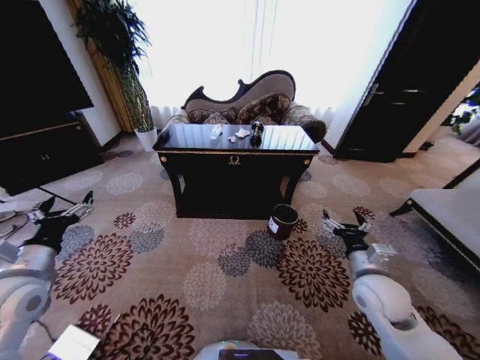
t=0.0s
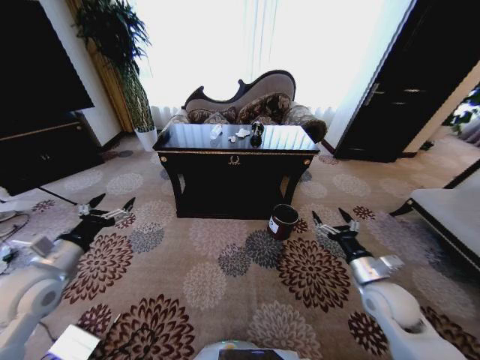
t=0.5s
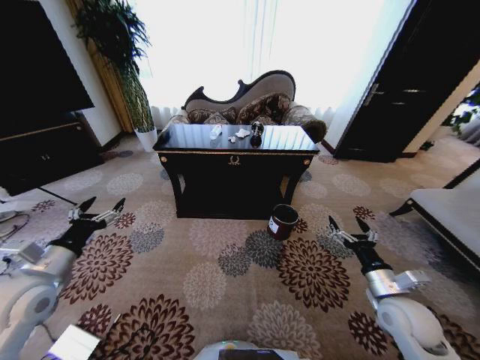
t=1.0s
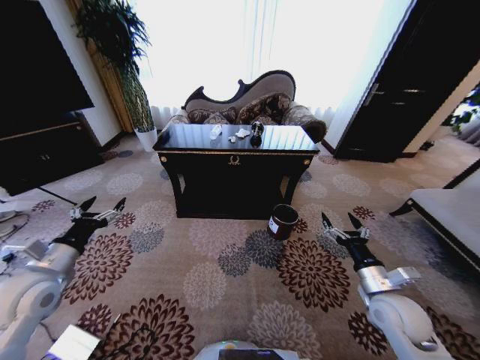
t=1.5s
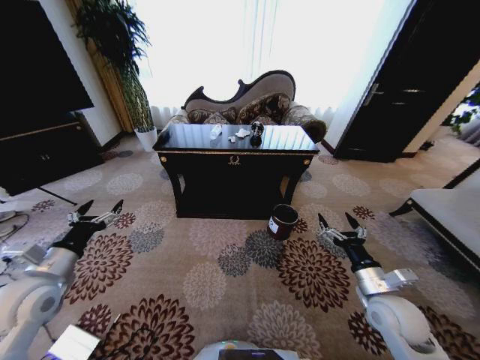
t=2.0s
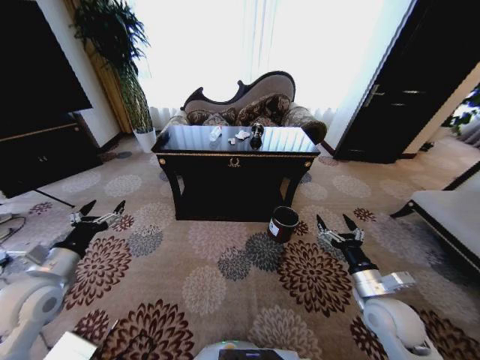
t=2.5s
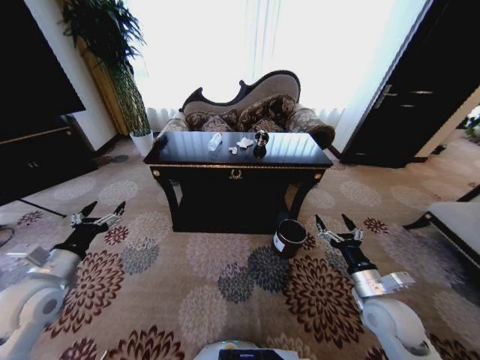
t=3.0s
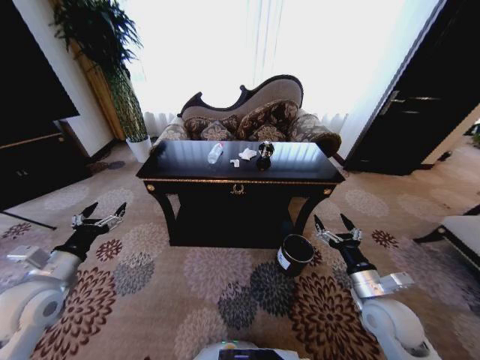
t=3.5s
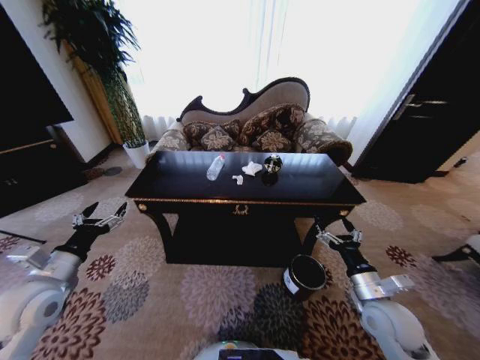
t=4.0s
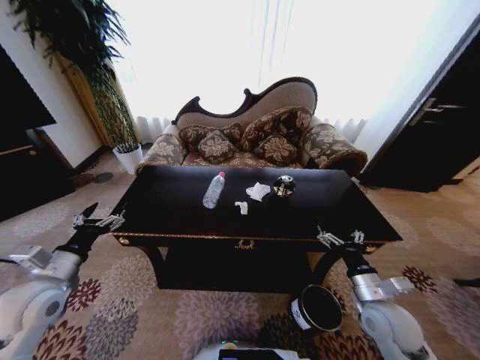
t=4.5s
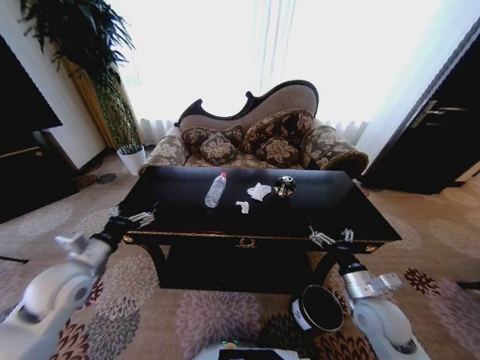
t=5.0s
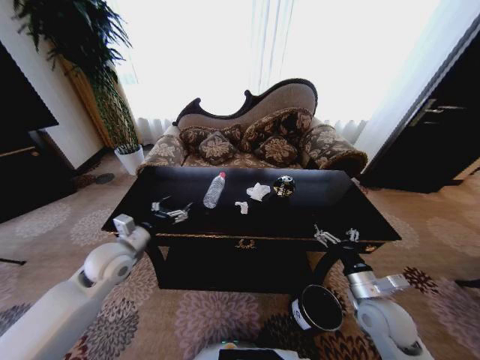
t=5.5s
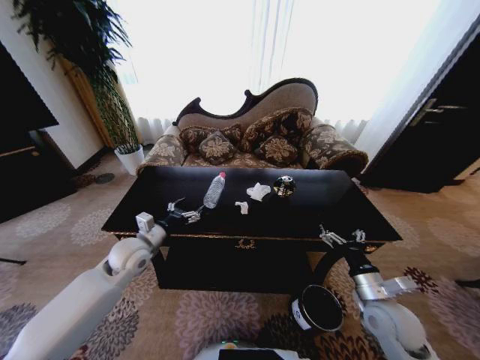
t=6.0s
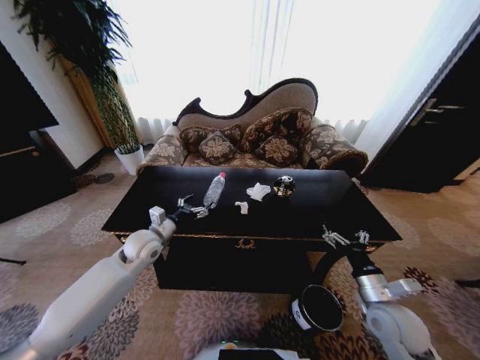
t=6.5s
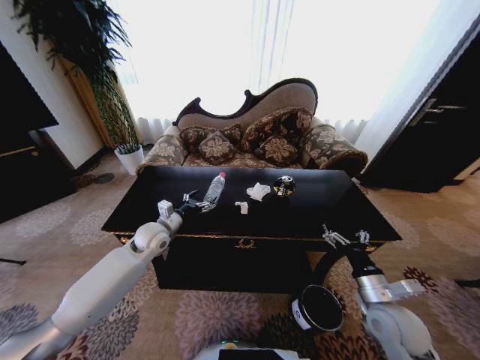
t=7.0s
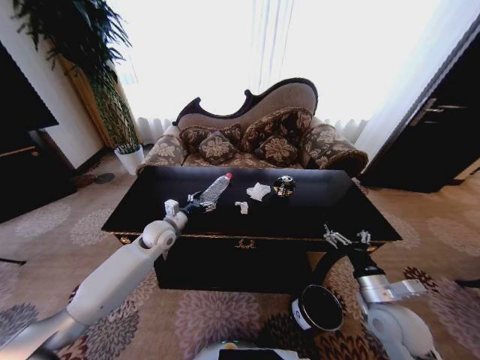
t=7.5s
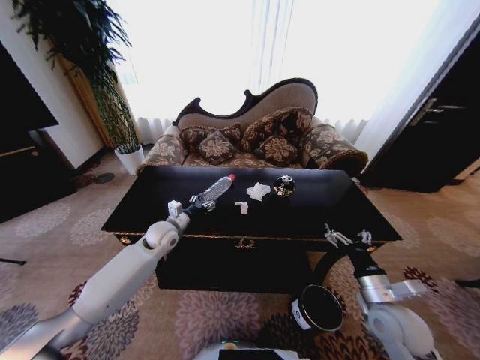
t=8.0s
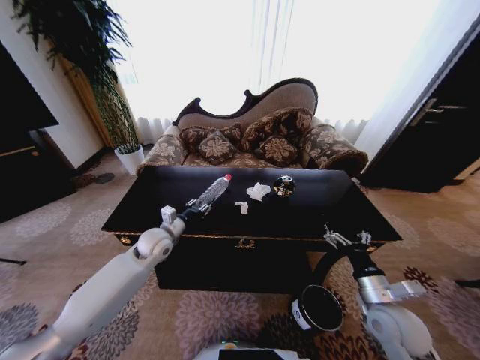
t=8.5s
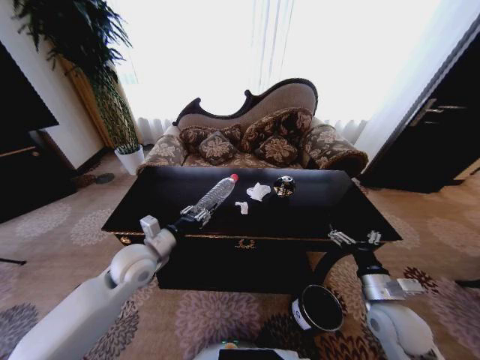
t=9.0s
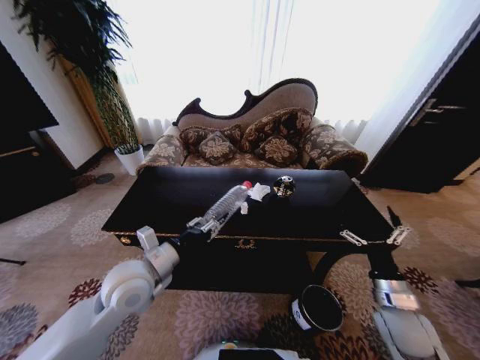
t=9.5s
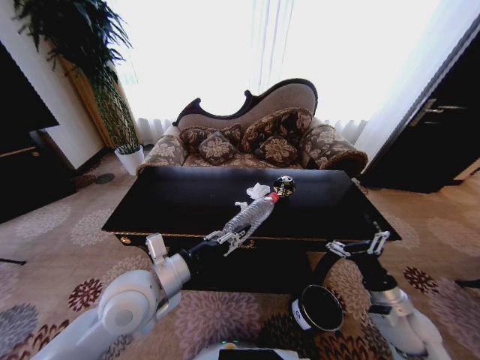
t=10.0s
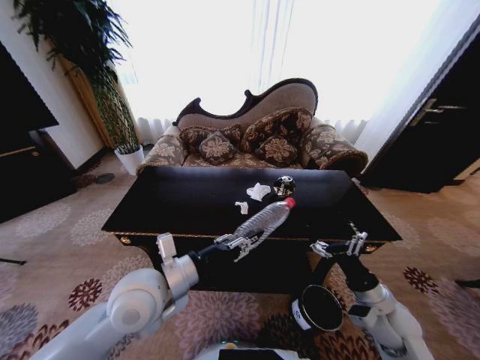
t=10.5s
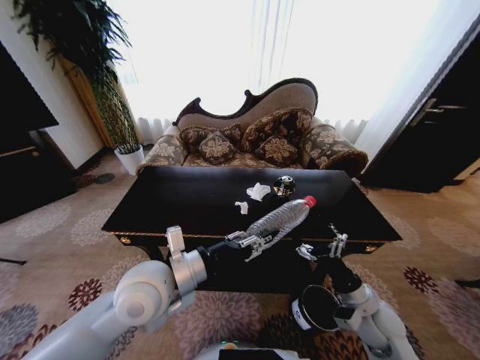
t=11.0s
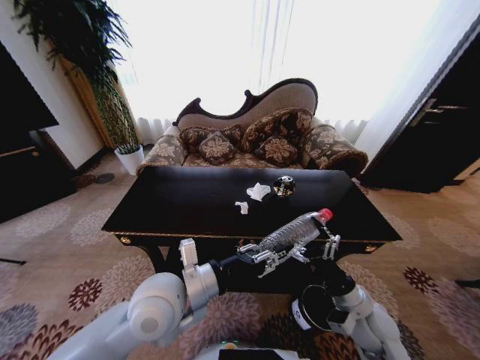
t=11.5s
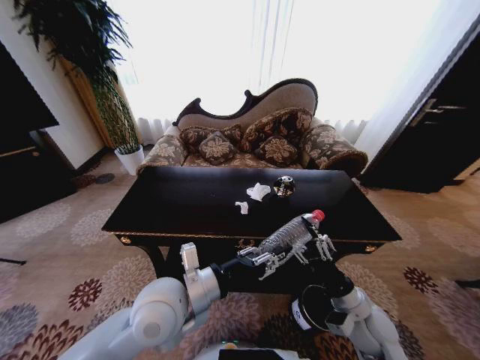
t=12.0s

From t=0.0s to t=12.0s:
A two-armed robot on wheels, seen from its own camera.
Task of the whole recording: Move to the front of the table and place the trash on the table into the trash bin.
From t=4.0s to t=6.0s: The left gripper heads forward and to the right, covering about 20 cm.
From t=6.0s to t=8.0s: The left gripper shifts approximately 10 cm forward and to the right, and closes its fingers.
From t=8.0s to t=10.0s: The right gripper ends up some 5 cm from where it was. The left gripper shifts roughly 25 cm backward and upward, and closes up.
From t=10.0s to t=12.0s: The left gripper heads to the right, covering some 5 cm. Meanwhile the right gripper is displaced to the left by approximately 10 cm.

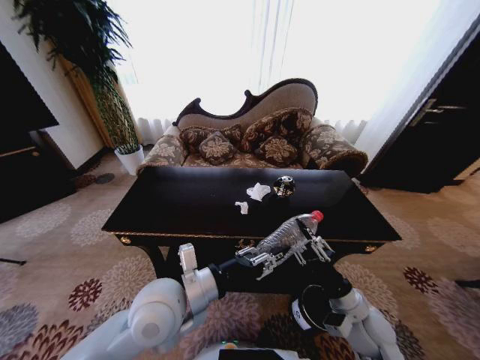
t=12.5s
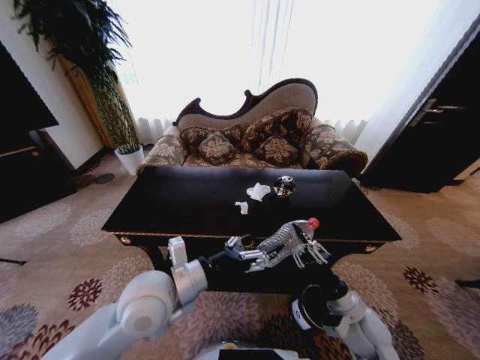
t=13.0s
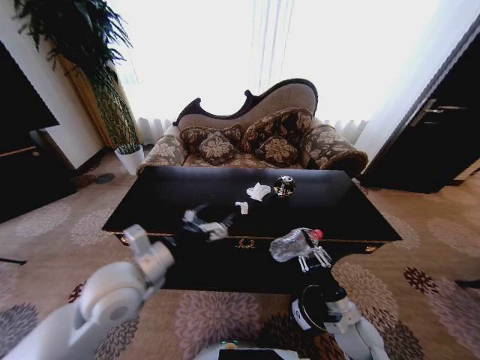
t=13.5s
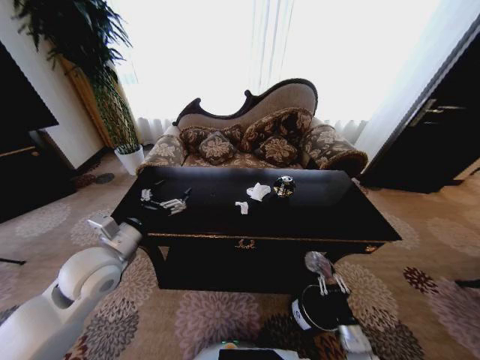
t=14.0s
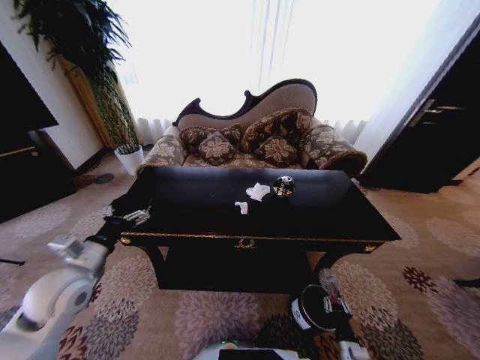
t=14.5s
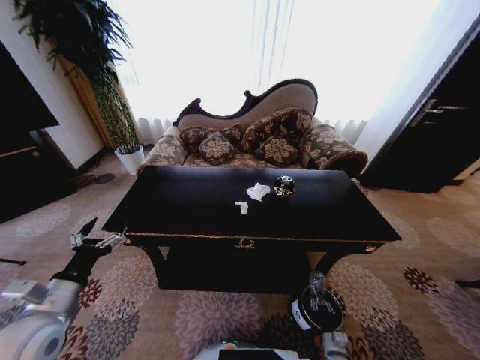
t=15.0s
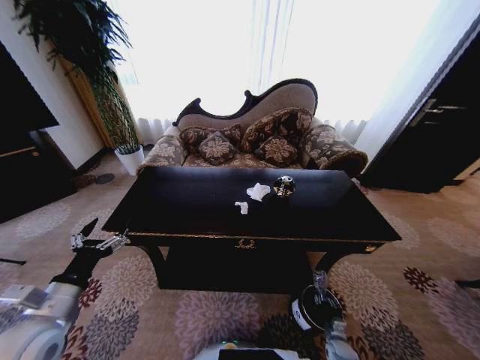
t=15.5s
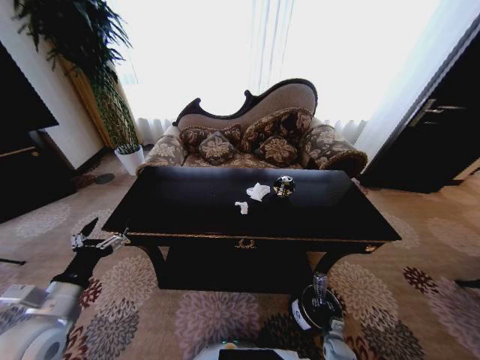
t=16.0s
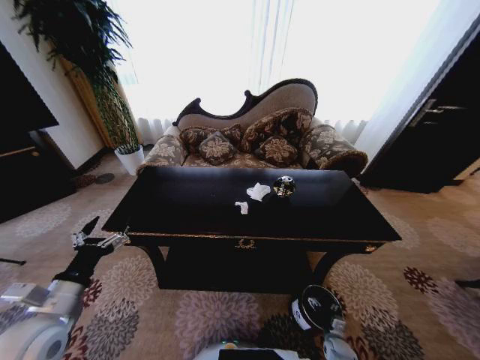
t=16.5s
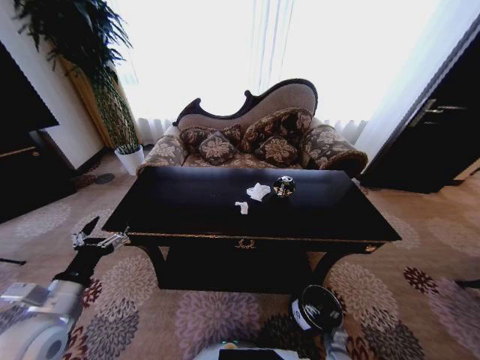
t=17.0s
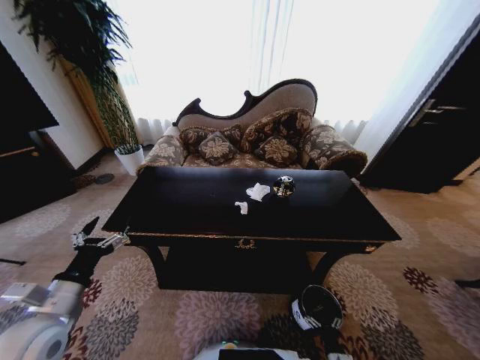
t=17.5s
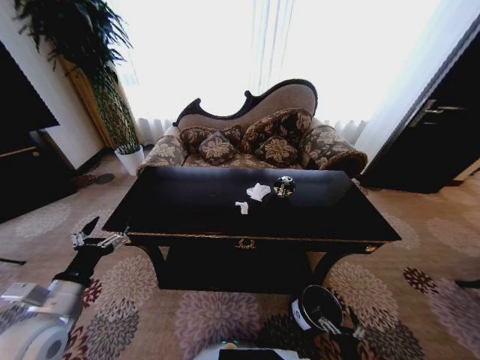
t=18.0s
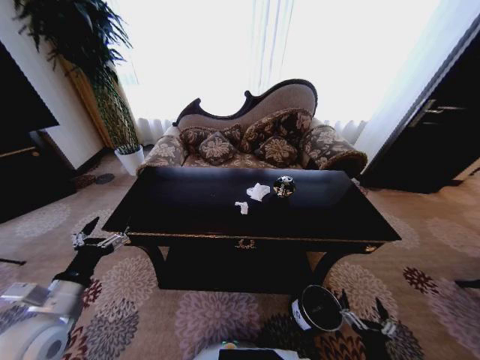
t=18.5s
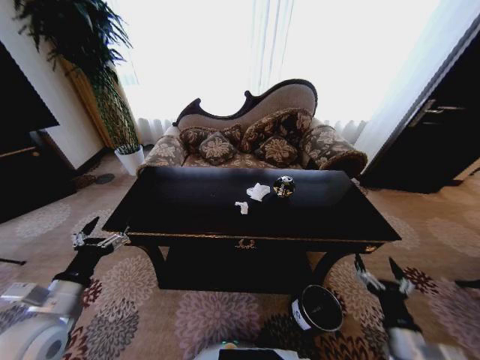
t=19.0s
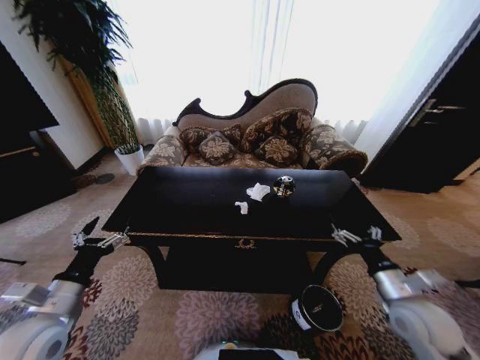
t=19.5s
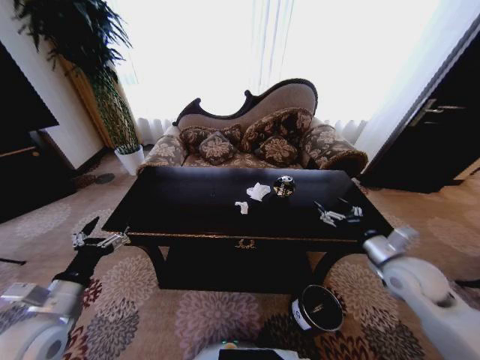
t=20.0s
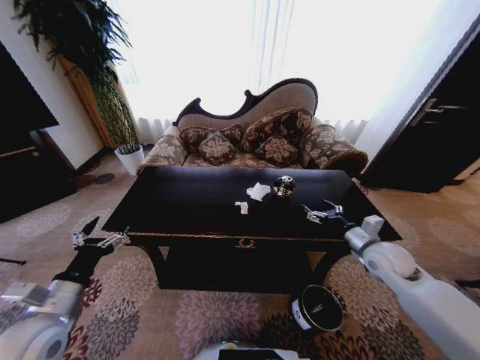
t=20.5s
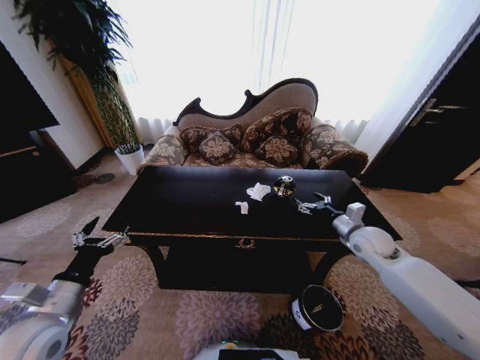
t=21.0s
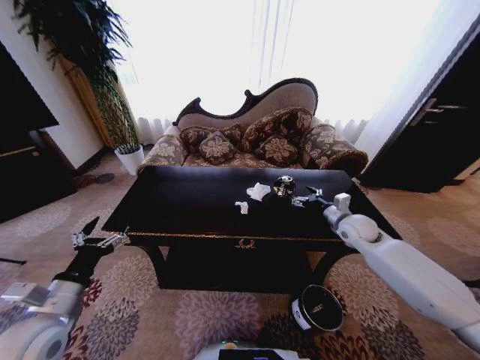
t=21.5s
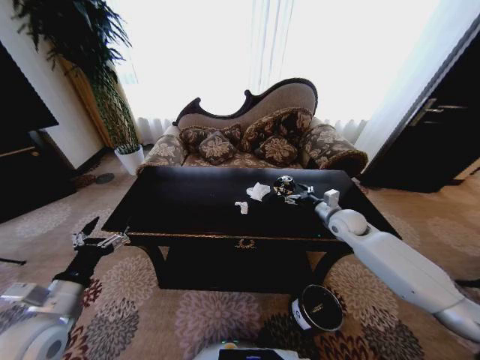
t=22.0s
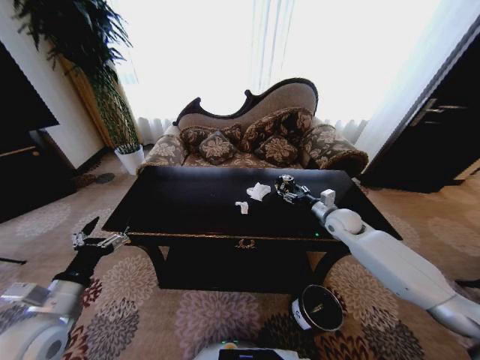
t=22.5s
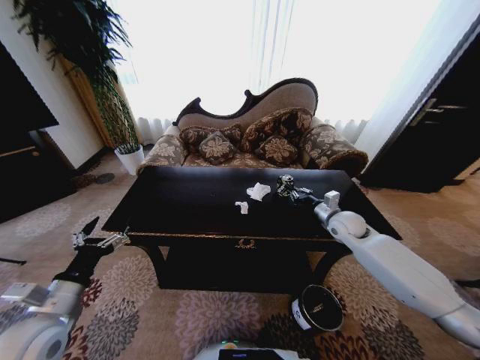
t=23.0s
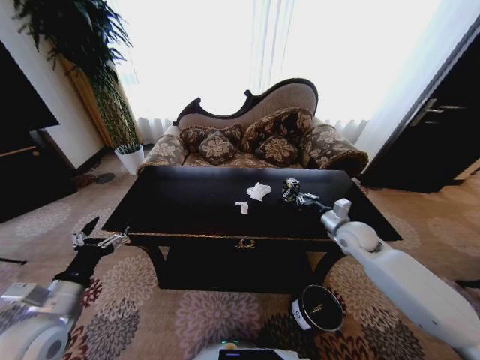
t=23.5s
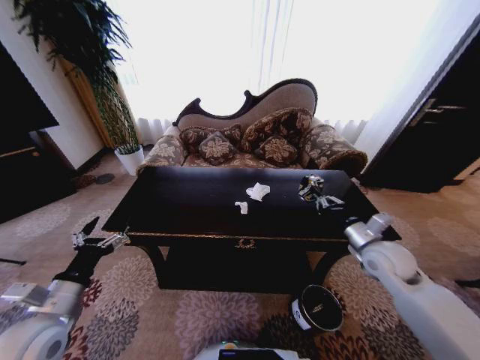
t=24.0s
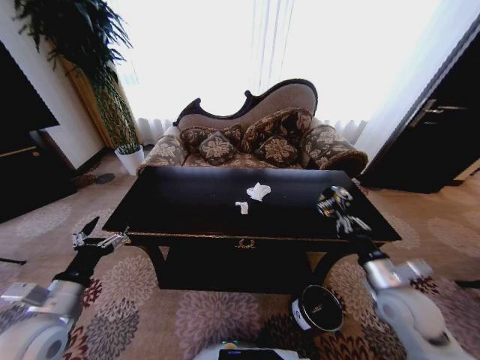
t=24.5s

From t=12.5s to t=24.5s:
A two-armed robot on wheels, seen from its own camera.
Task of the whole recording: Move to the front of the table and place the trash on the table into the trash bin.
From t=12.5s to t=14.5s: The left gripper goes roughly 20 cm to the left, and opens up, while the right gripper heads downward and backward, covering roughly 25 cm.
From t=14.5s to t=16.5s: The left gripper shifts approximately 10 cm backward. The right gripper goes approximately 15 cm downward and forward, and opens up.
From t=16.5s to t=18.5s: The right gripper heads upward and backward, covering some 25 cm.
From t=18.5s to t=20.5s: The right gripper moves forward and upward, roughly 35 cm.
From t=20.5s to t=22.5s: The right gripper travels forward by approximately 15 cm.
From t=22.5s to t=24.5s: The right gripper travels backward by some 25 cm, and closes its fingers.

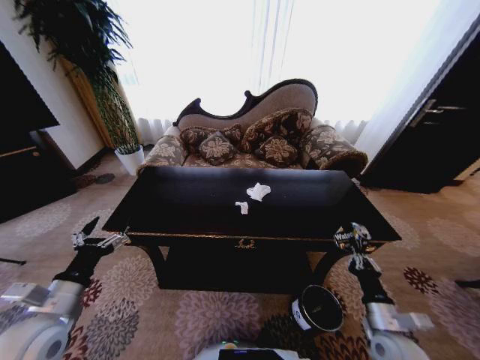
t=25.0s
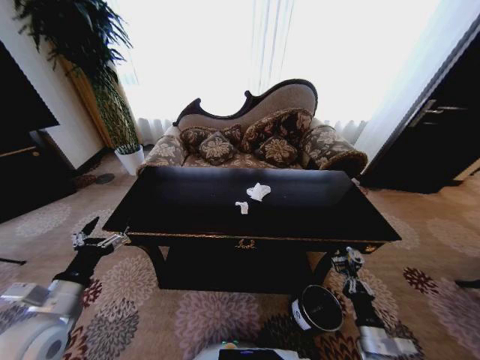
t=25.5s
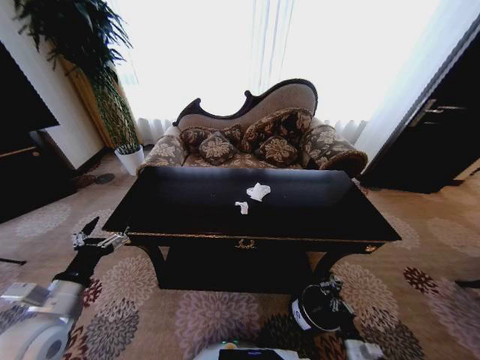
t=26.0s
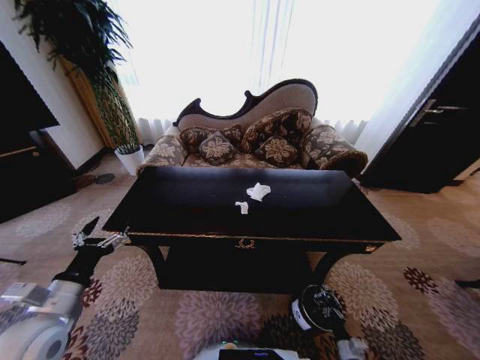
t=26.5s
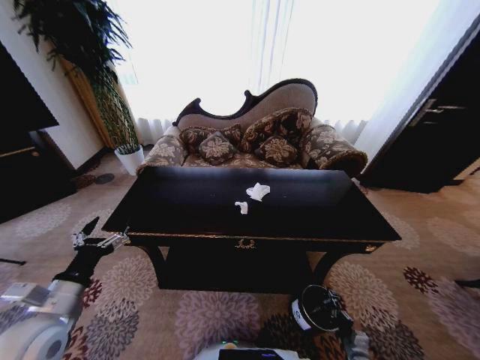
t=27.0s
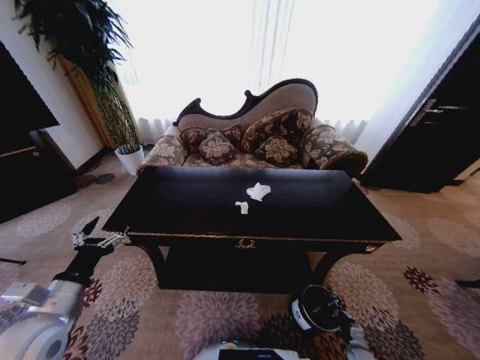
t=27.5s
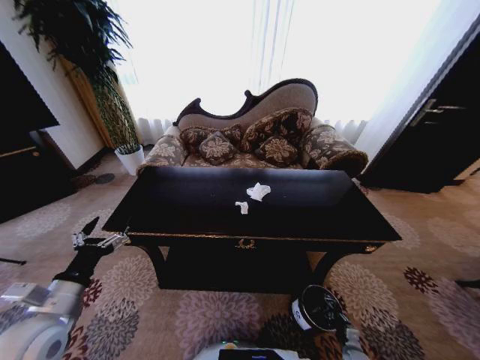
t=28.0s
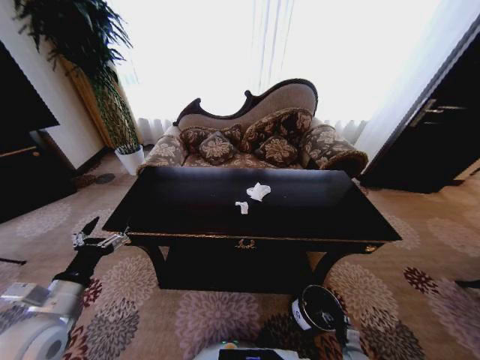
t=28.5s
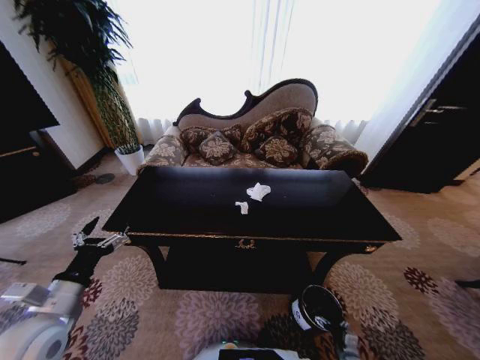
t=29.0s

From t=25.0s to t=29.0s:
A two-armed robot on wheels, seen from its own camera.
Task of the whole recording: Move to the front of the table and place the trash on the table into the trash bin.
From t=25.0s to t=27.0s: The right gripper shifts approximately 30 cm downward.
From t=27.0s to t=29.0s: The right gripper opens.
